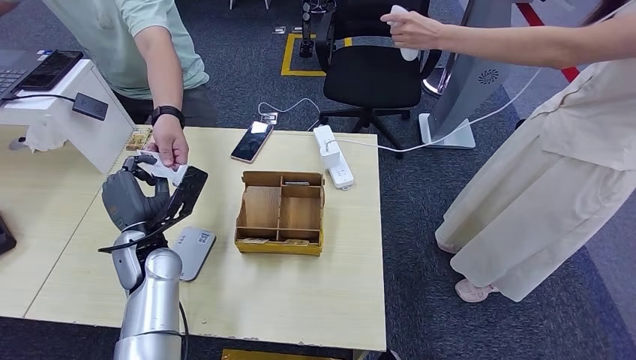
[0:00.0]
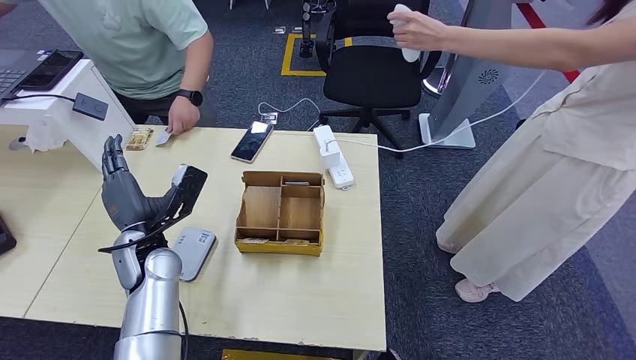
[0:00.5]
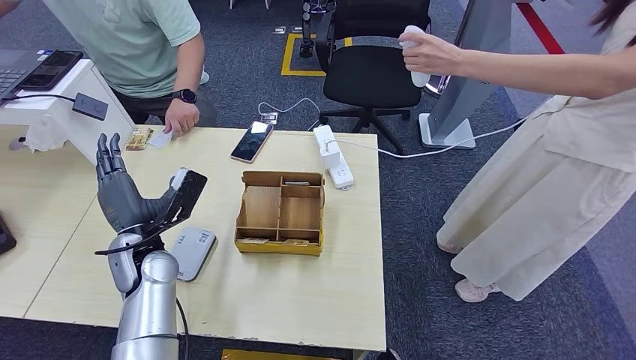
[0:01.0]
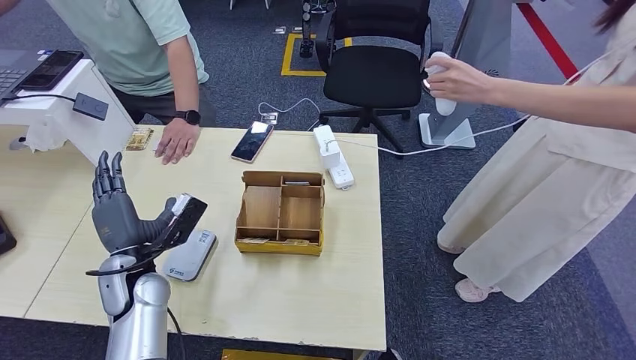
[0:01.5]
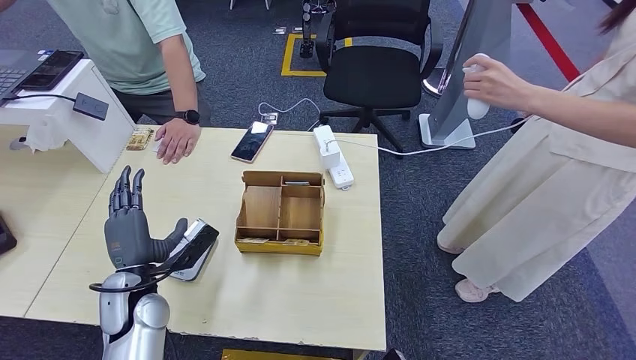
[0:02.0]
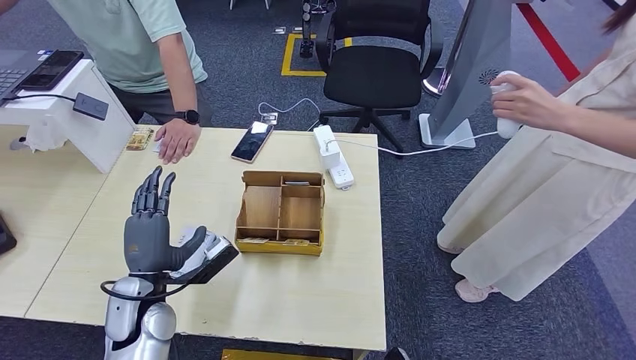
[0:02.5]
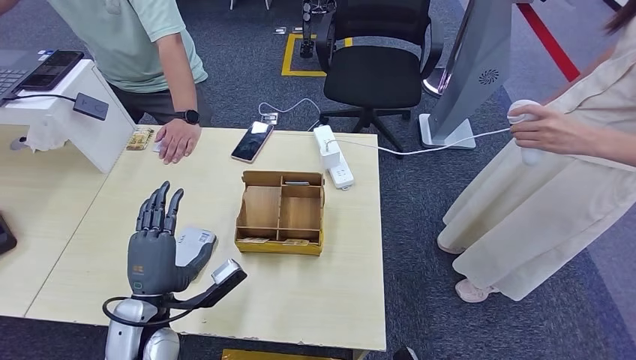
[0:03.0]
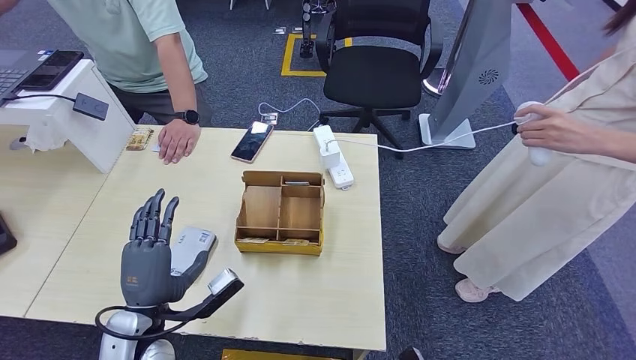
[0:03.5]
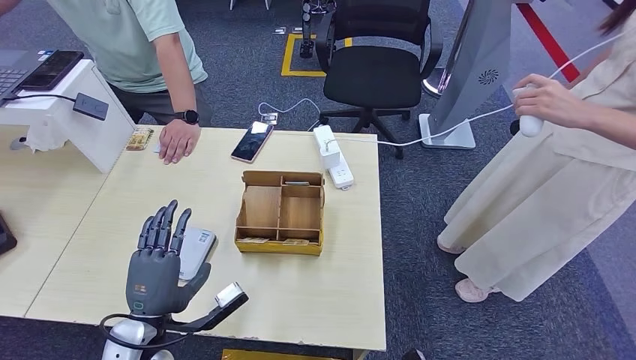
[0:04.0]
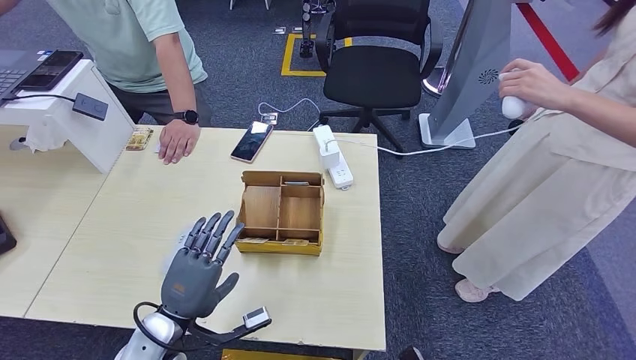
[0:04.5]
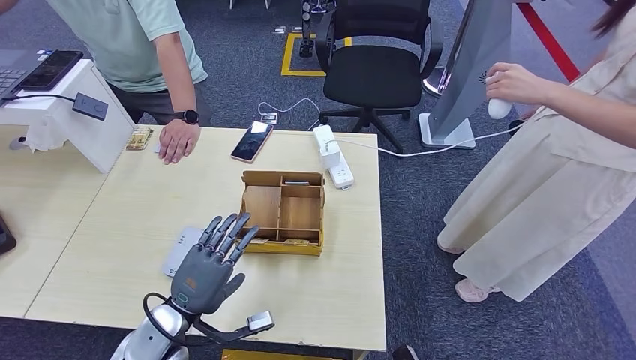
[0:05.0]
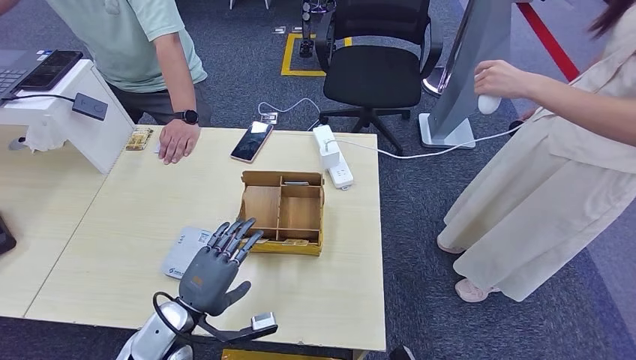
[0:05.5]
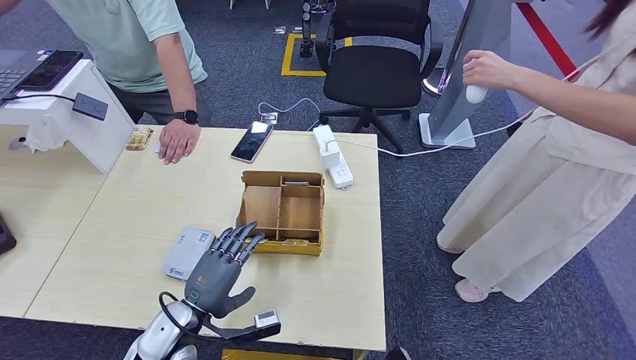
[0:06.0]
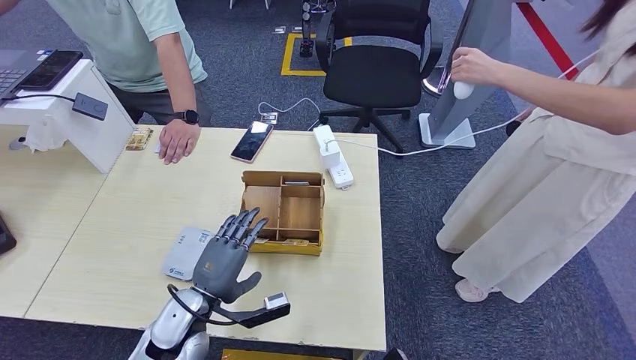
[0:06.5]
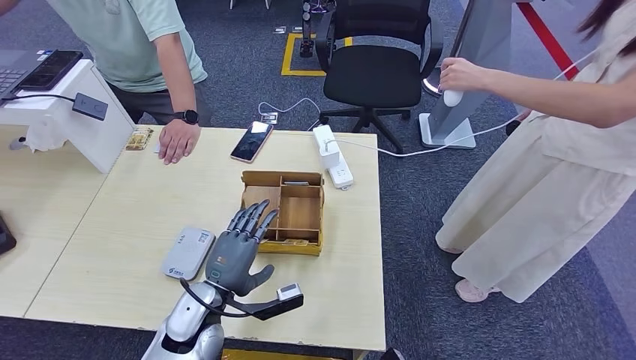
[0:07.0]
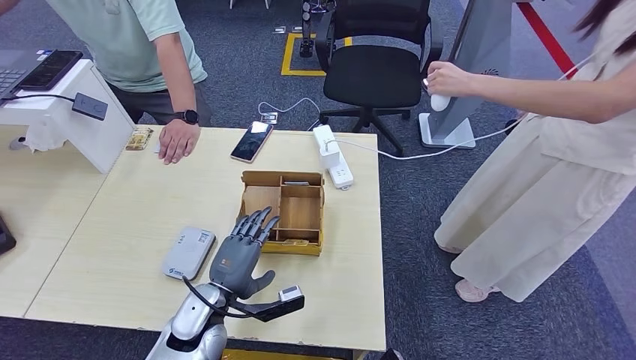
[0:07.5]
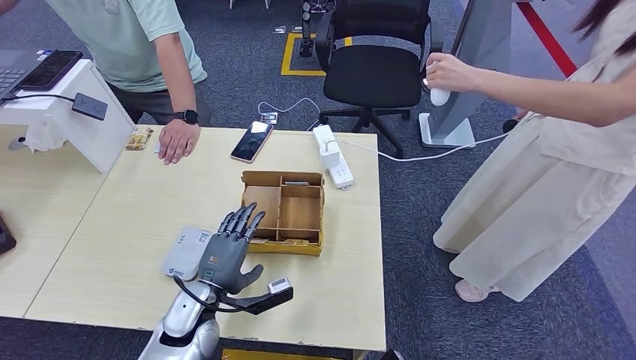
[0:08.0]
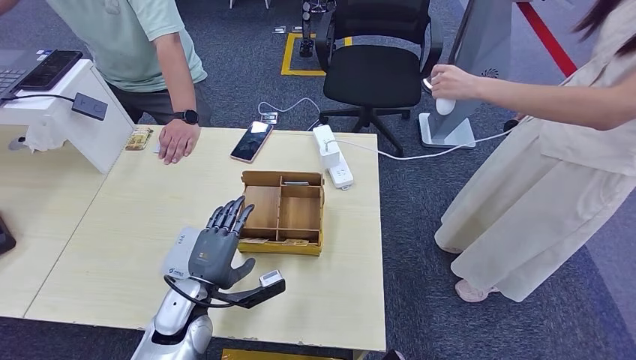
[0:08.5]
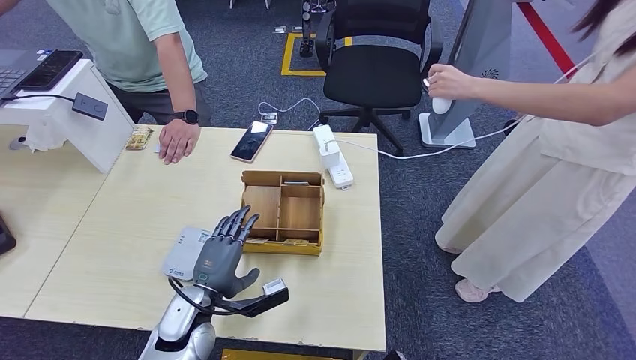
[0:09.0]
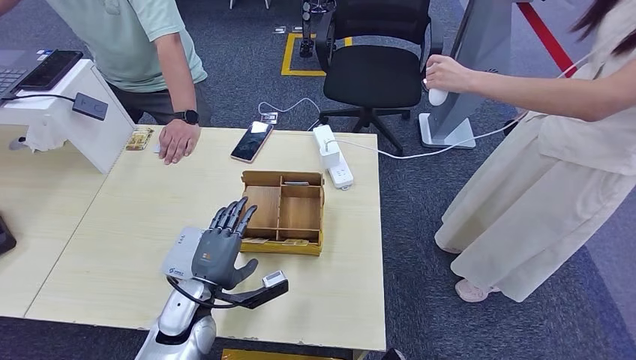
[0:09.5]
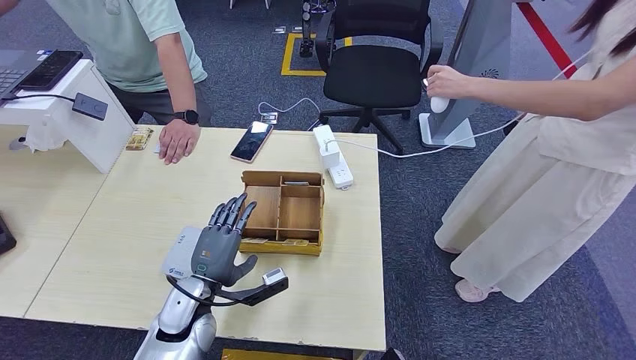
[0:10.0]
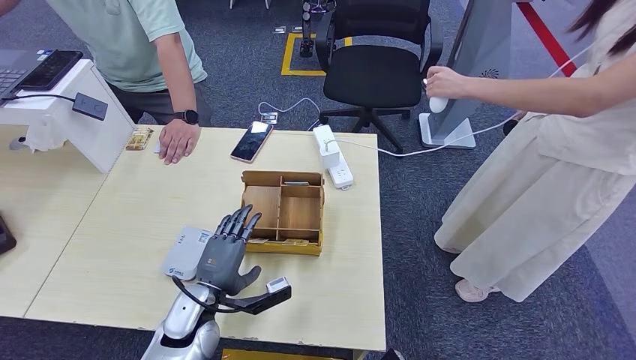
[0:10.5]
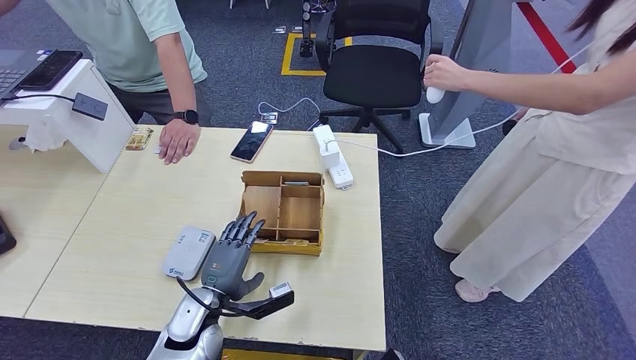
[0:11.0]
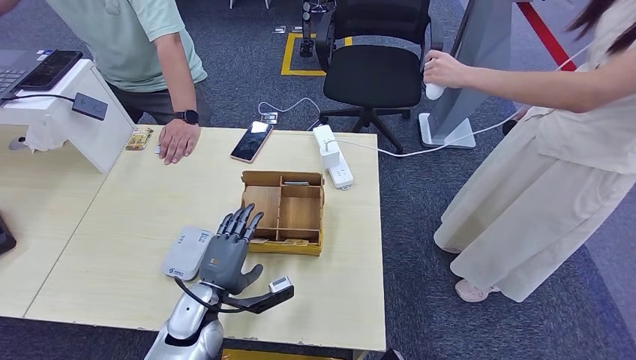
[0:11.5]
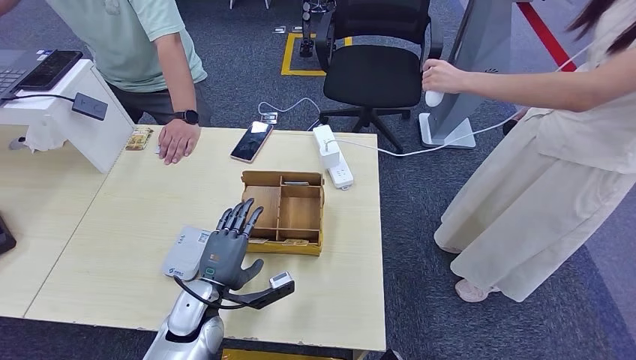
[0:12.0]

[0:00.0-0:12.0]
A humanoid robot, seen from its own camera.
0:00.0 to 0:02.0: The left hand heads backward, covering approximately 5 cm.
0:02.0 to 0:04.0: The left hand shifts roughly 10 cm backward.
0:04.0 to 0:06.0: The left hand changes place by some 5 cm.
0:06.0 to 0:12.0: There are only small adjustments of the hands.

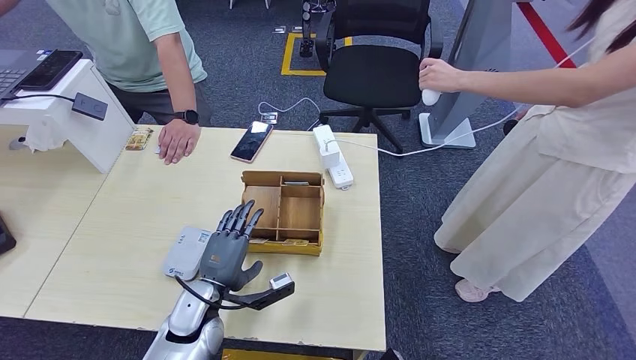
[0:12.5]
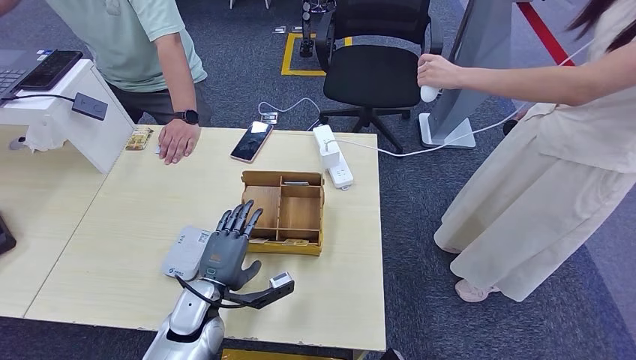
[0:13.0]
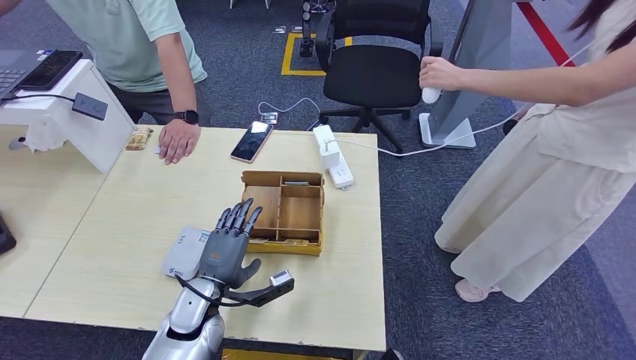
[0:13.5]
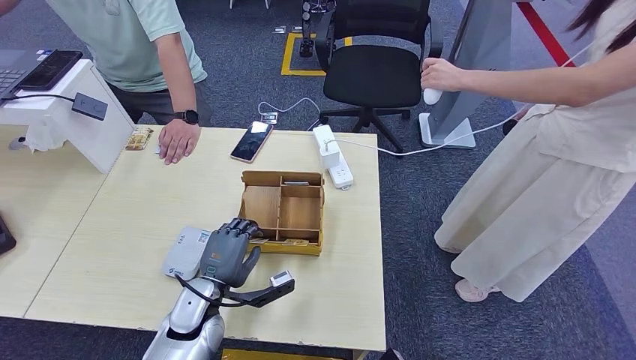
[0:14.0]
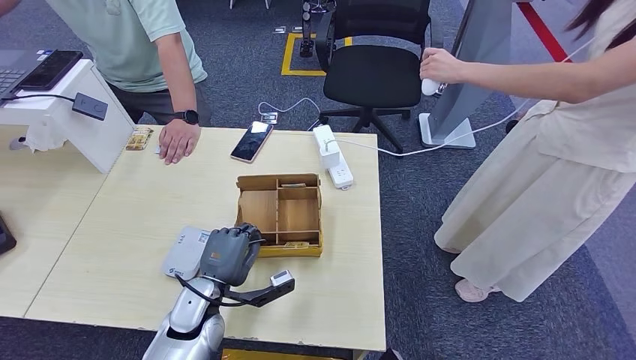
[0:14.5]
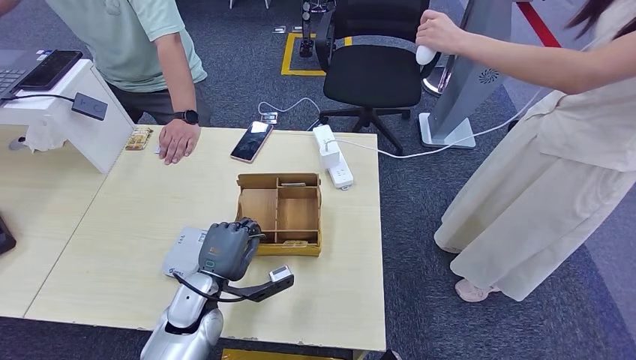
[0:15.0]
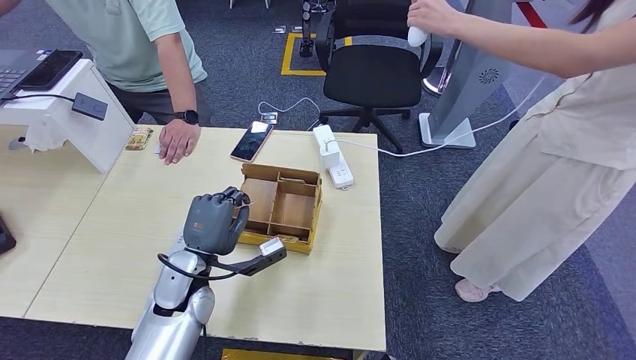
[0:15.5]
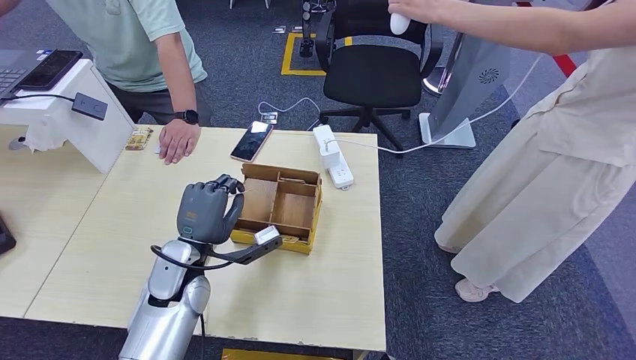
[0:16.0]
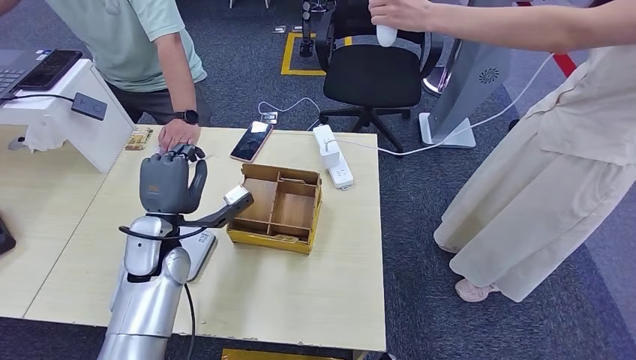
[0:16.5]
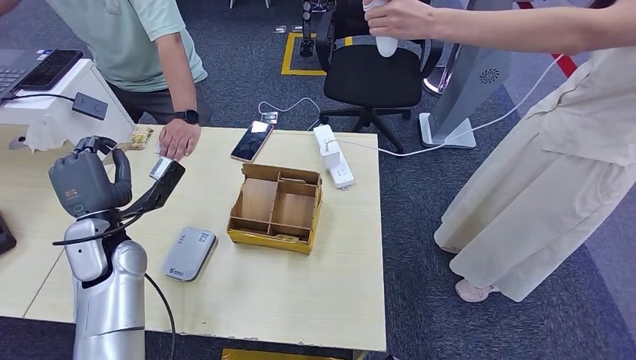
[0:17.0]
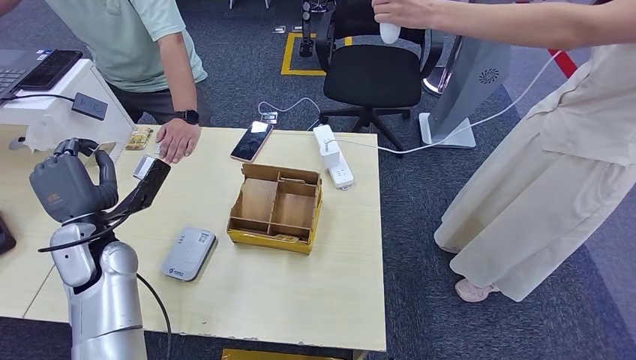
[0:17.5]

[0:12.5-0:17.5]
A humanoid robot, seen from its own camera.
Step, 0:12.5 to 0:15.5: Pick up the room key from the key card box.
Step, 0:16.0 to 0:17.5: Hand the room key to the person.
0:12.5 to 0:15.0: The hands move only a little.
0:15.0 to 0:17.5: The left hand goes approximately 20 cm to the left and upward.
